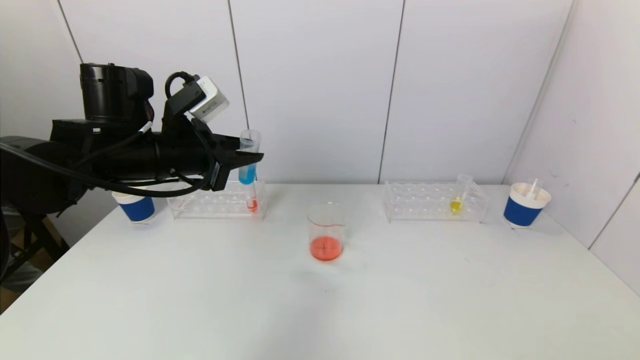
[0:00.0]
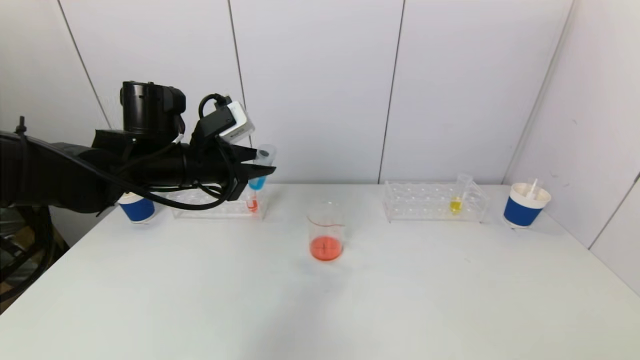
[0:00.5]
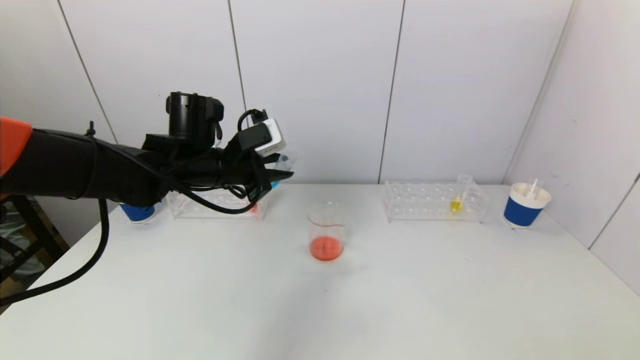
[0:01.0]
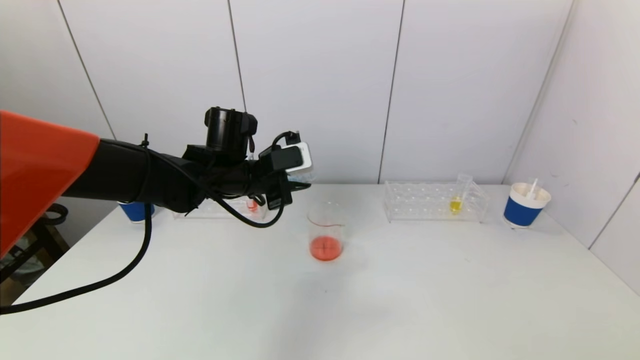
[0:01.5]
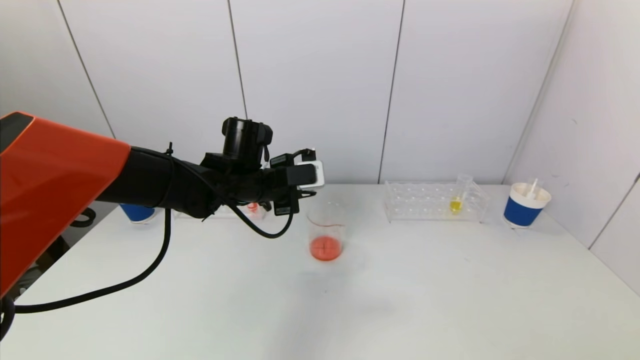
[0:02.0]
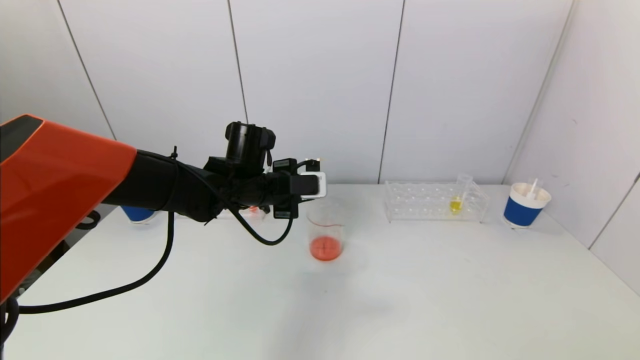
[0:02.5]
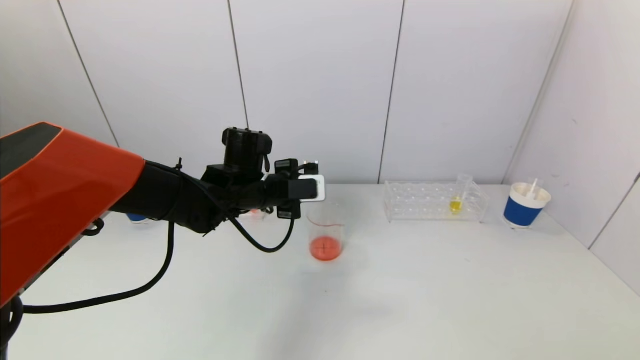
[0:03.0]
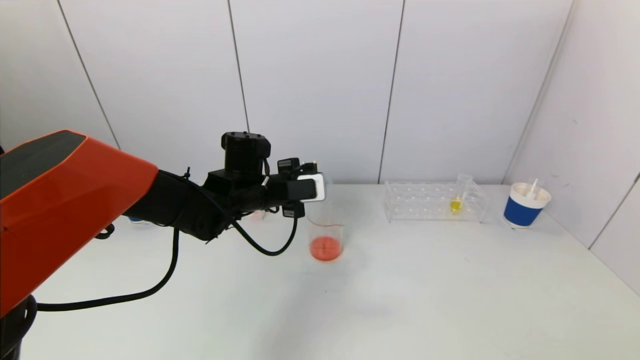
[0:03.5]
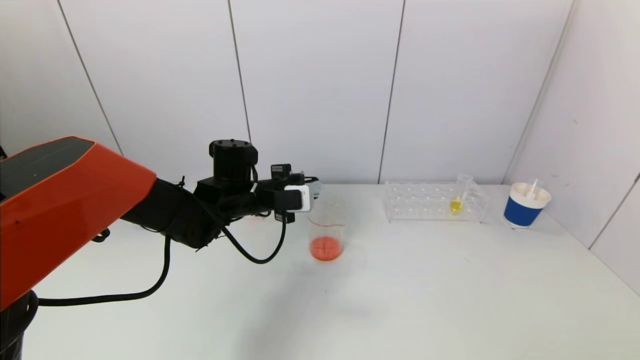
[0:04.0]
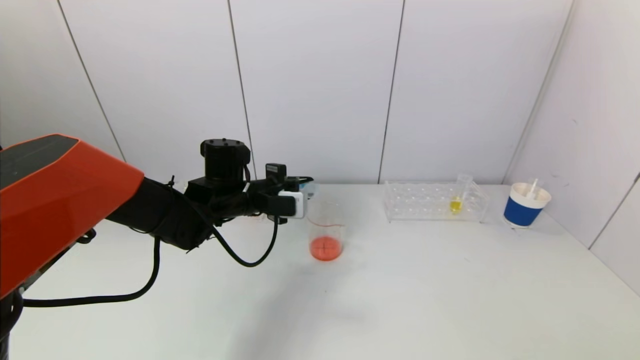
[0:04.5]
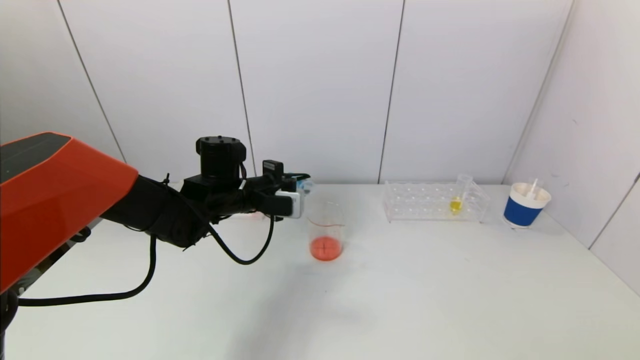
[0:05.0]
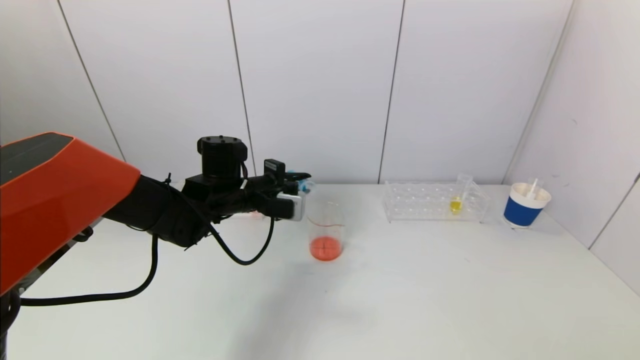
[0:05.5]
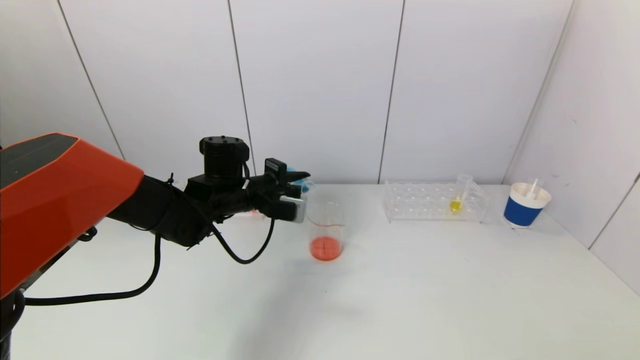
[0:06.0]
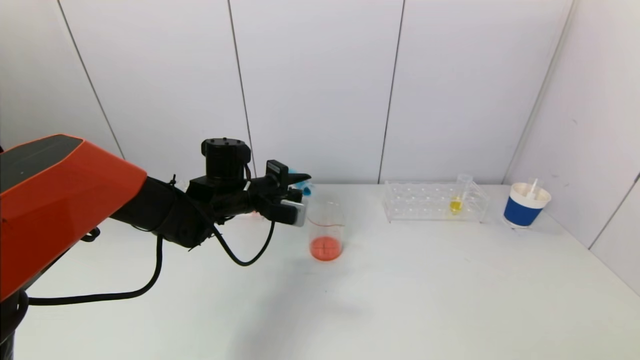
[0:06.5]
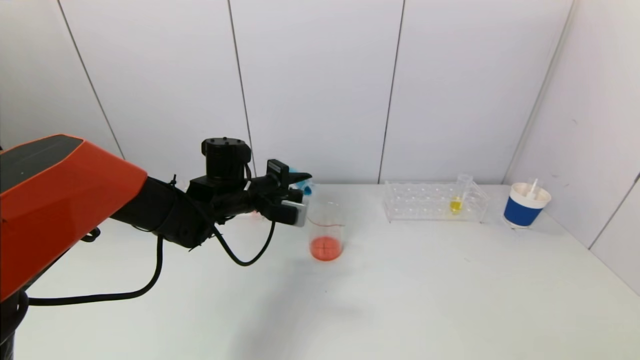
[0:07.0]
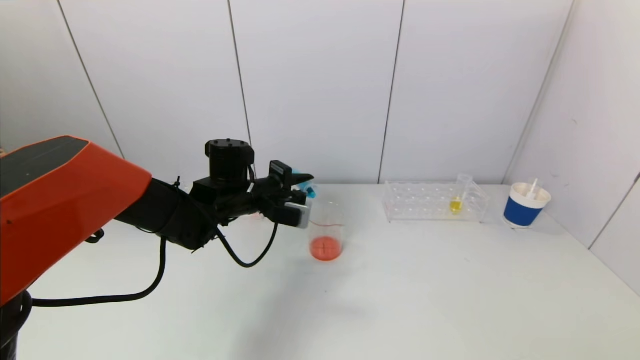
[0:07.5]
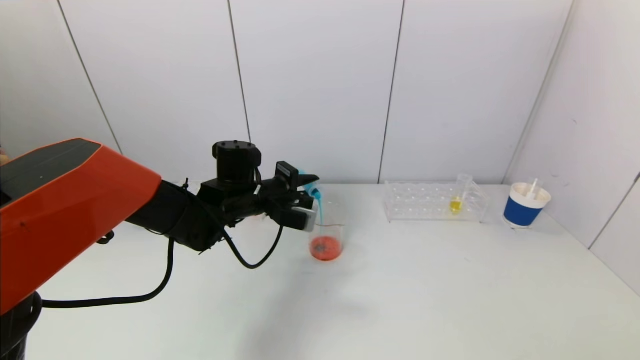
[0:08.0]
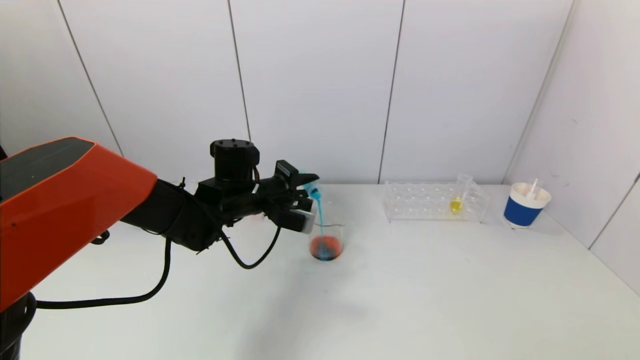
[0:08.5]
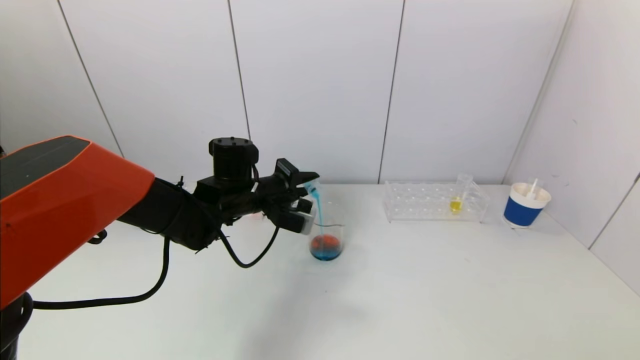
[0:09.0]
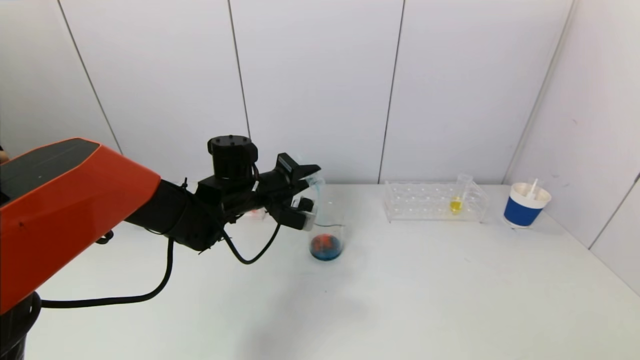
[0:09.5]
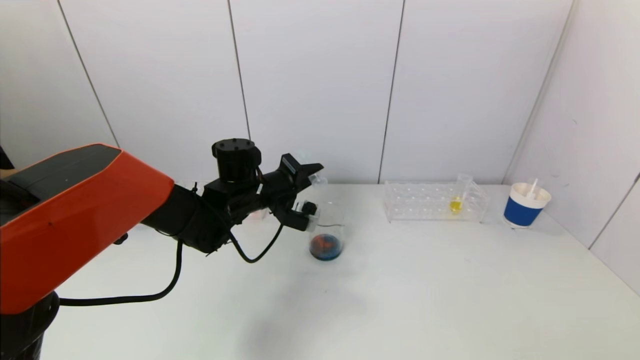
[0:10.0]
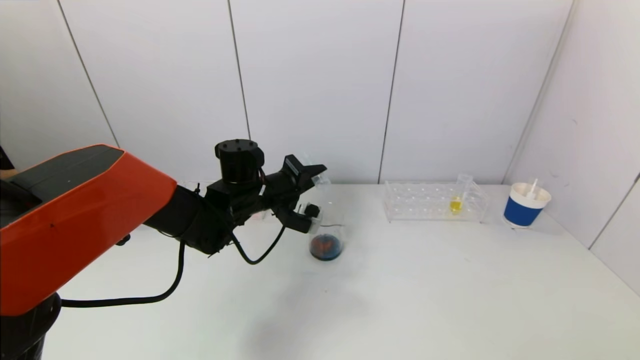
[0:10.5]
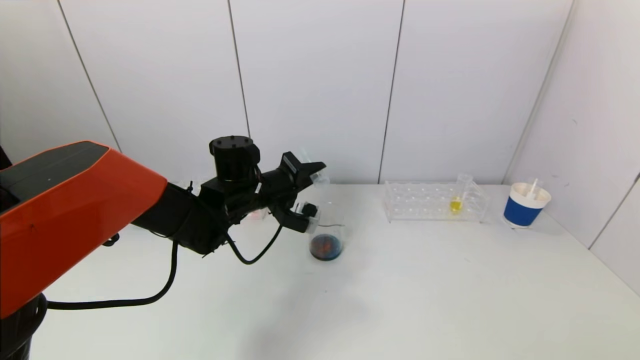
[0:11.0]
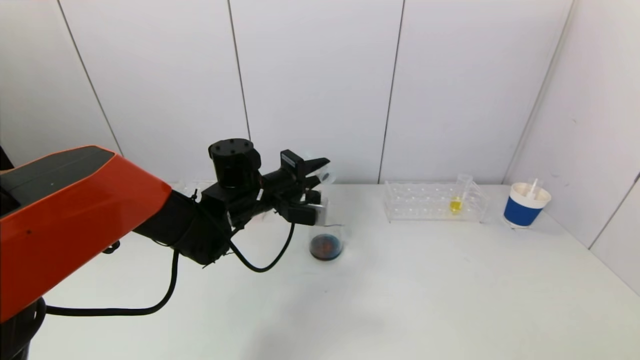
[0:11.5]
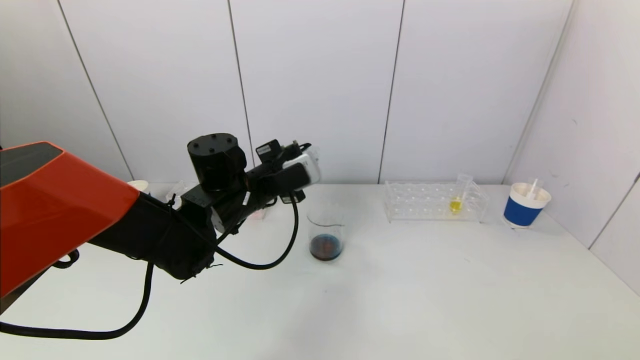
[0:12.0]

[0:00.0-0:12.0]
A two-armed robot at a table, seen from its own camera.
Task of the whole recording: pick up a test tube with pigment on left test tube rack and a test tube with pigment on right test tube rack by grippers and pour them into the beaker.
Step, 0:00.0 to 0:11.0: Pour the blue reagent into the graduated cylinder with the left gripper.
0:00.0 to 0:02.0: The left gripper is displaced to the right, downward and forward by some 15 cm.
0:02.0 to 0:04.0: The grippers stay close to where they were, moving slightly.
0:04.0 to 0:06.0: The grippers make only small movements.
0:06.0 to 0:08.0: There are only small adjustments of the grippers.
0:08.0 to 0:10.0: There are only small adjustments of the grippers.
0:10.0 to 0:12.0: The left gripper is displaced backward by approximately 5 cm.

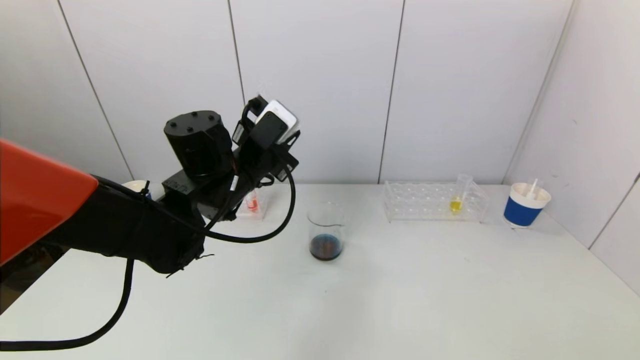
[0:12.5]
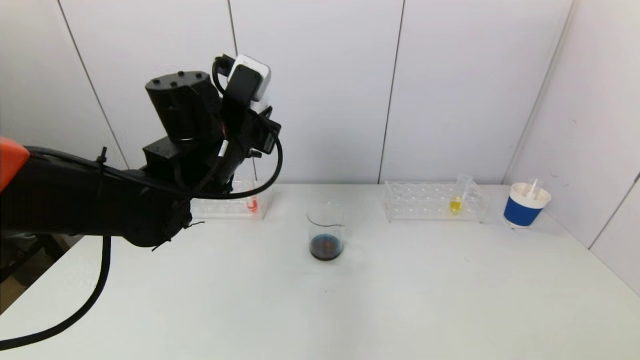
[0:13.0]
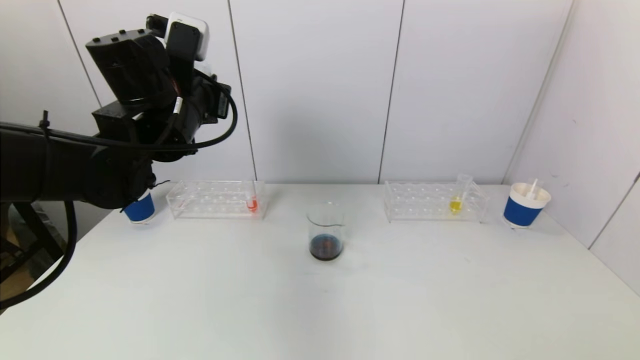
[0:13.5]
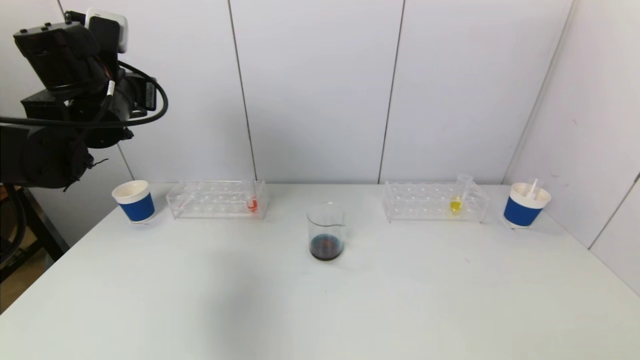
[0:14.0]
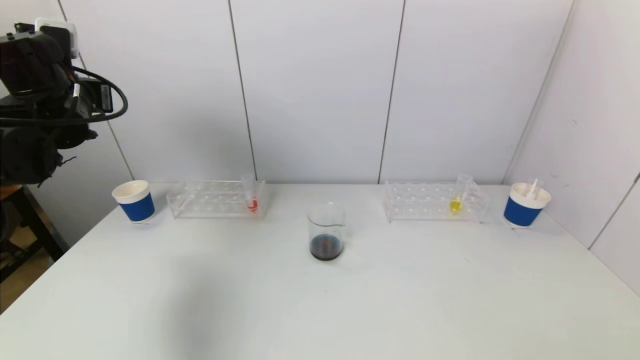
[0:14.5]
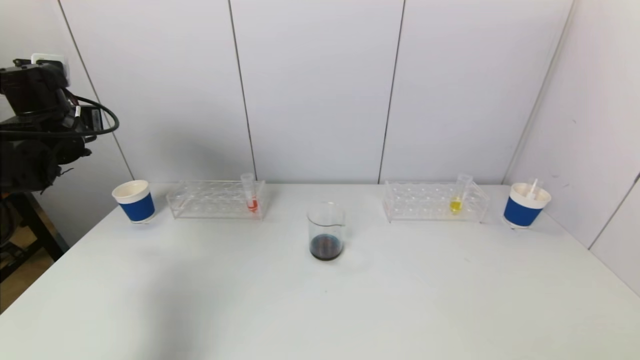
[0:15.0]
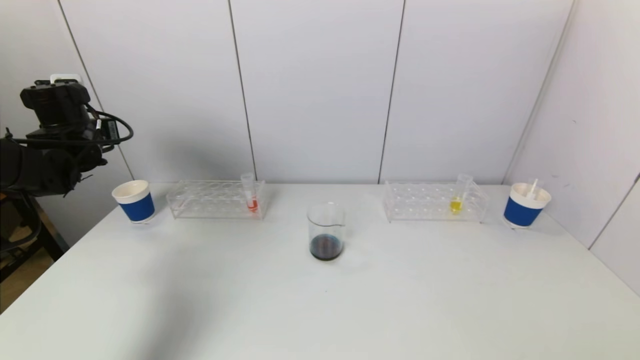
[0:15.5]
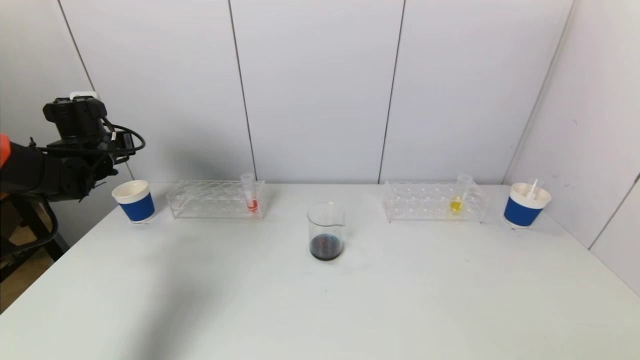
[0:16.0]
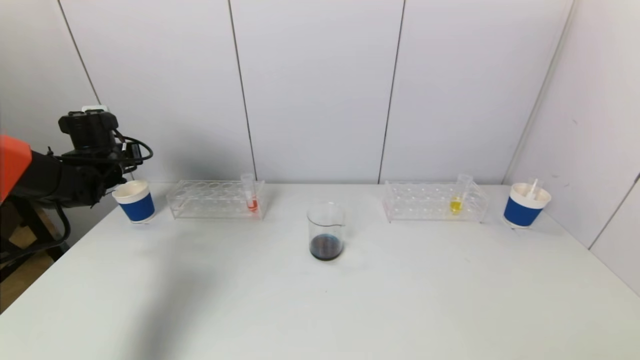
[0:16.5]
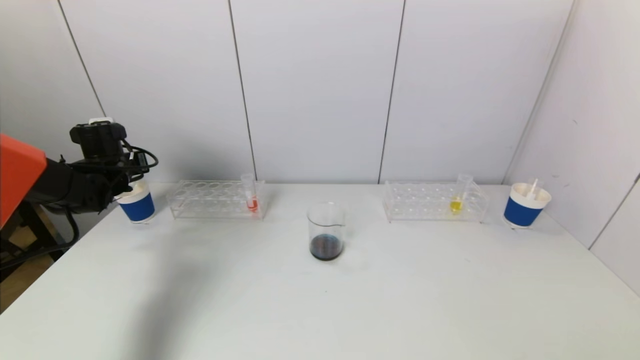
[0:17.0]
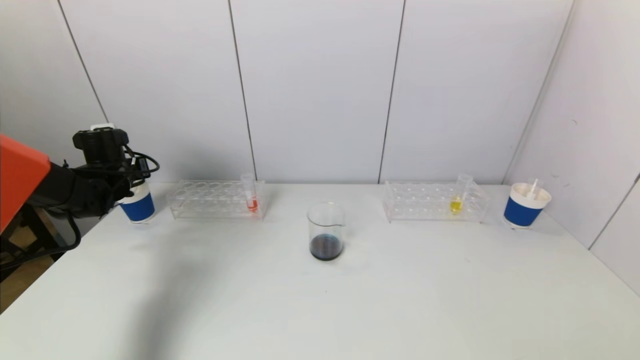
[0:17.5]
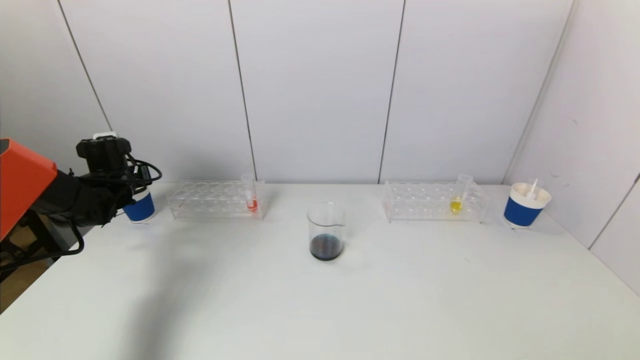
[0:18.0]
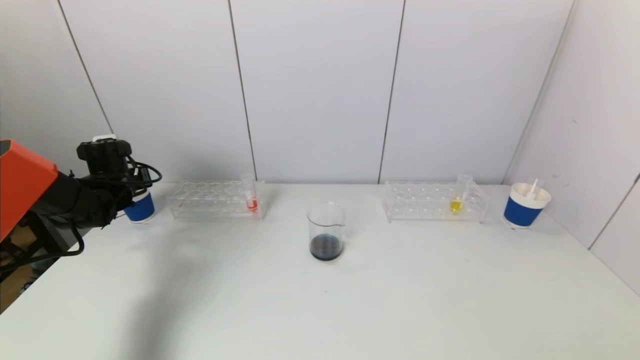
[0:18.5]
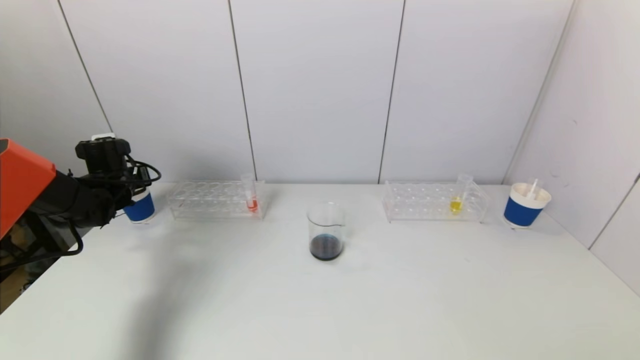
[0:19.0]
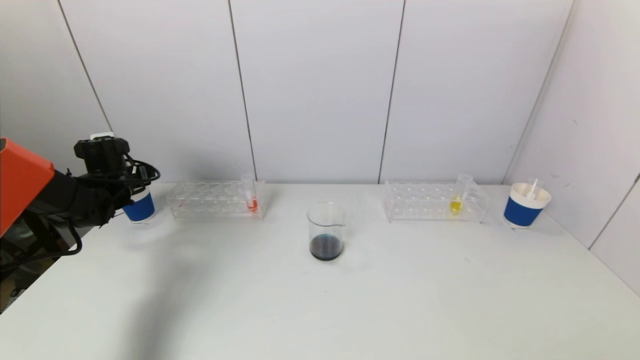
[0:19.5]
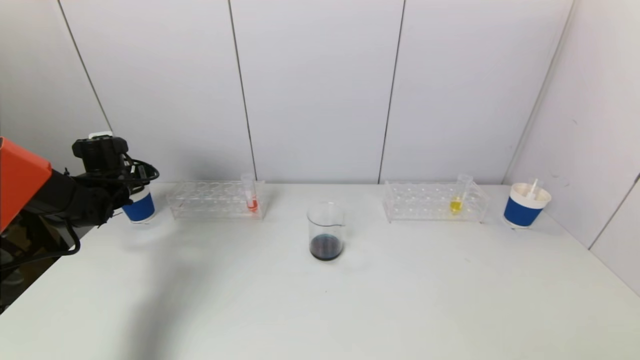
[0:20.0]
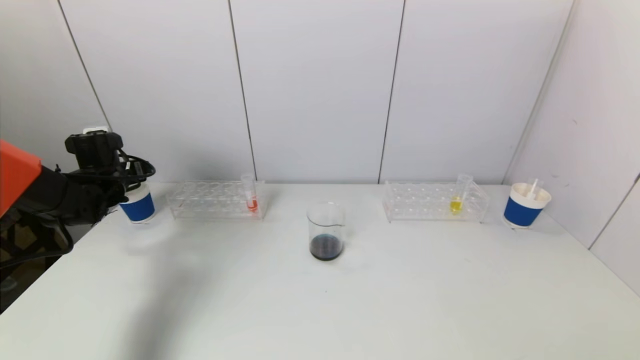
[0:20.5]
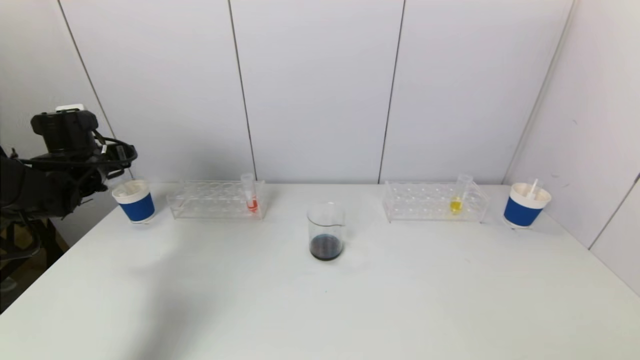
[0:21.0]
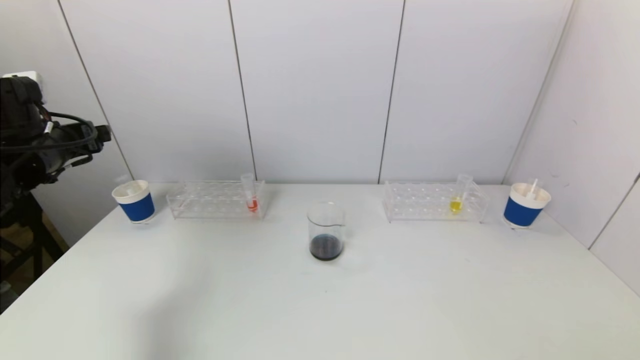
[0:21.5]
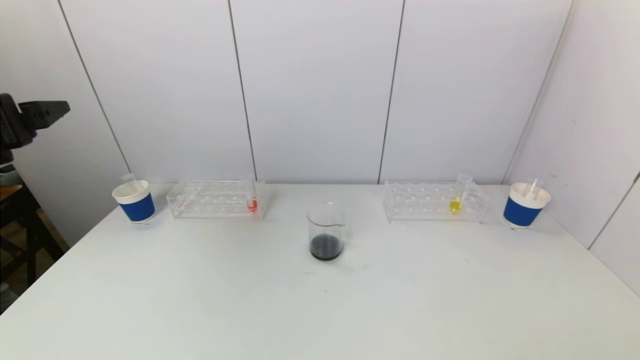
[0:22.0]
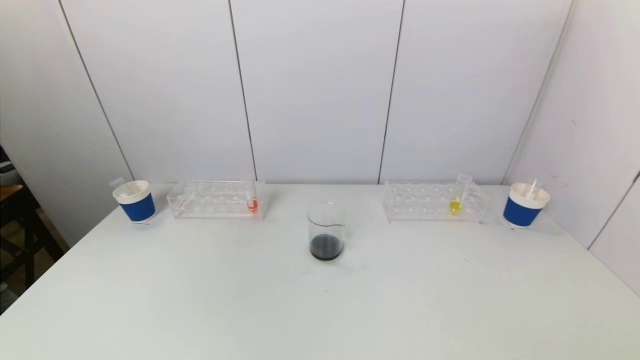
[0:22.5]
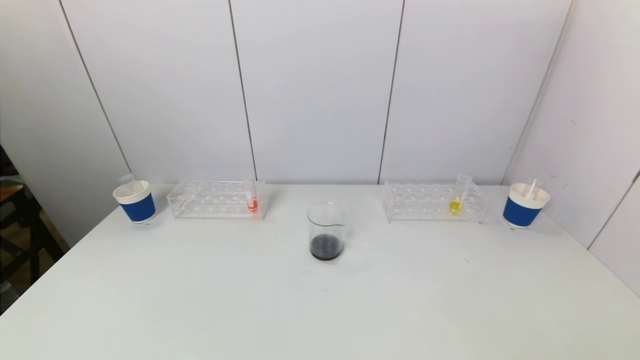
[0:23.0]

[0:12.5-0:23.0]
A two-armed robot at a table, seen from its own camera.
Task of the whole recording: pick up a test tube with pigment on left test tube rack and a test tube with pigment on right test tube rack by grippers and pour them into the beaker.
Step, 0:12.5 to 0:19.0: Place the test tube into the paper cup with the left gripper.
0:12.5 to 0:14.5: The left gripper moves to the left, about 20 cm.
0:14.5 to 0:16.5: The left gripper goes about 15 cm downward and forward.
0:16.5 to 0:19.0: The left gripper moves downward, roughly 5 cm, and opens up.
0:19.0 to 0:21.0: The left gripper goes some 10 cm upward and backward, and opens its fingers.
0:21.0 to 0:23.0: The left gripper heads backward, covering roughly 40 cm.
